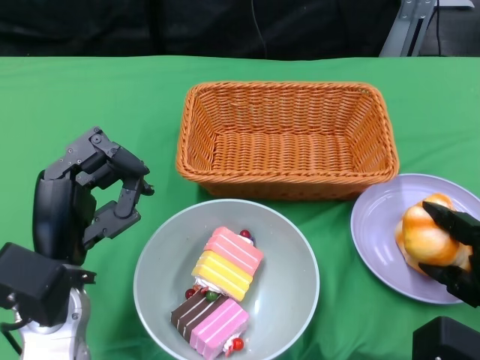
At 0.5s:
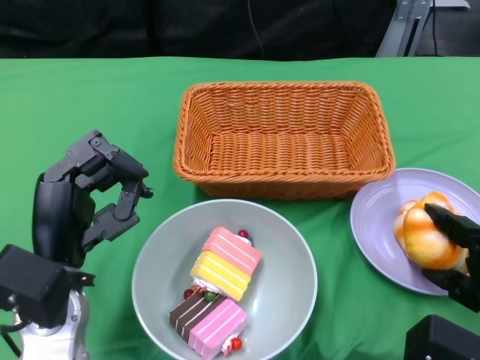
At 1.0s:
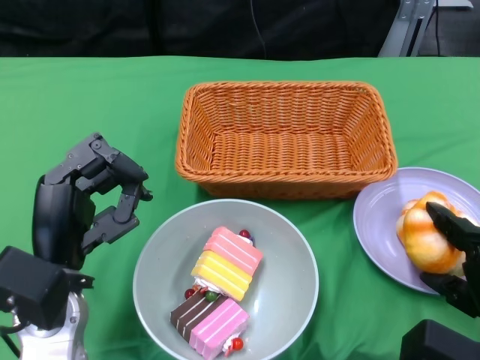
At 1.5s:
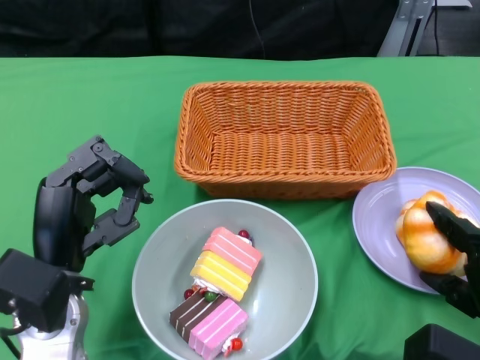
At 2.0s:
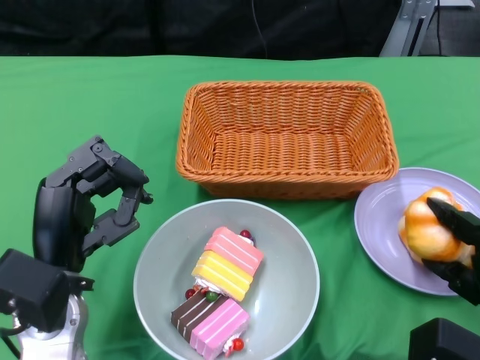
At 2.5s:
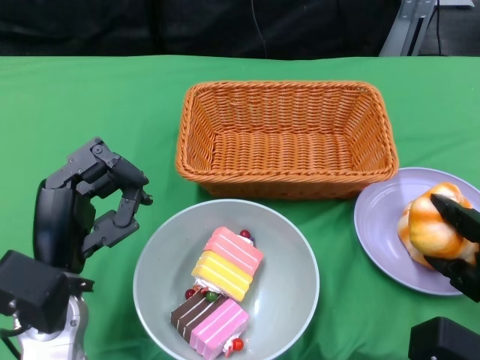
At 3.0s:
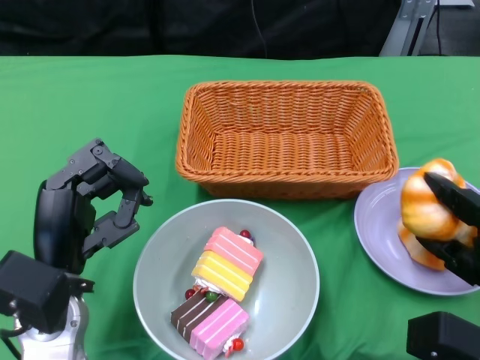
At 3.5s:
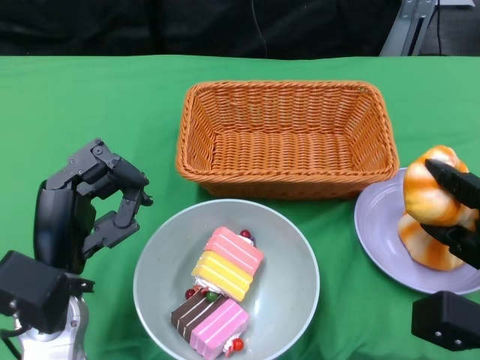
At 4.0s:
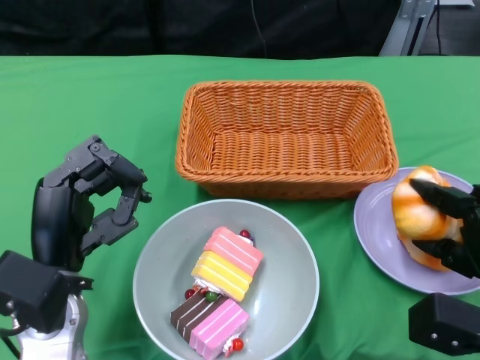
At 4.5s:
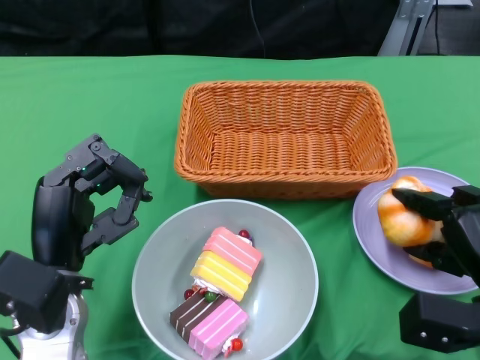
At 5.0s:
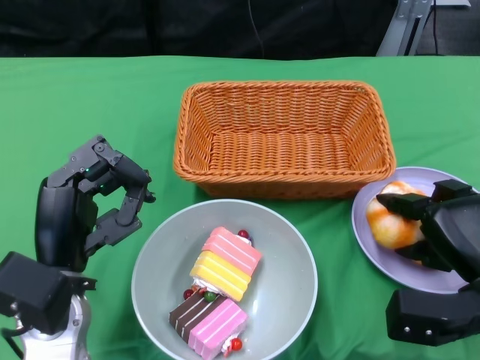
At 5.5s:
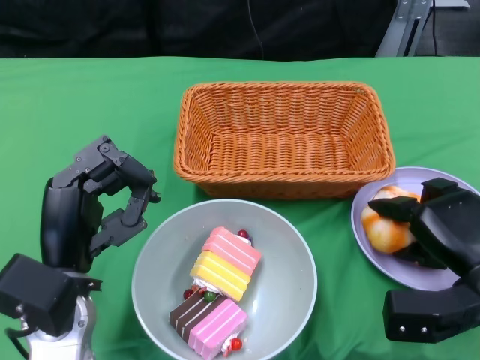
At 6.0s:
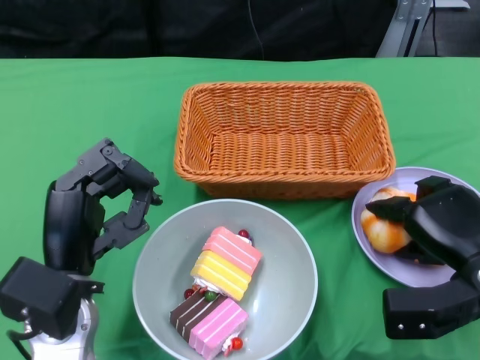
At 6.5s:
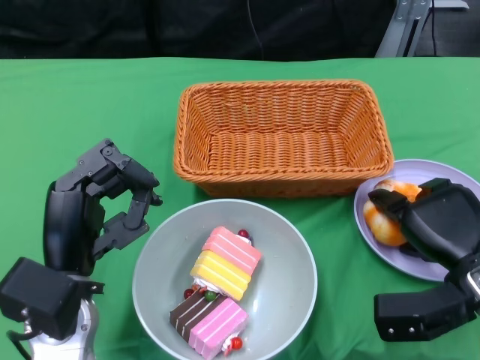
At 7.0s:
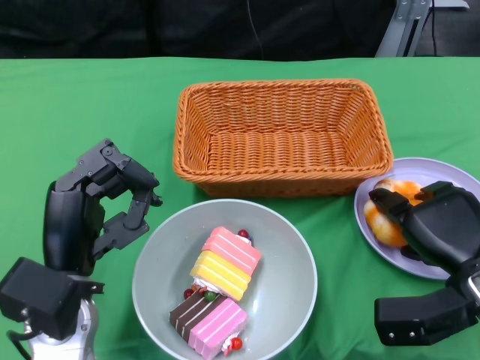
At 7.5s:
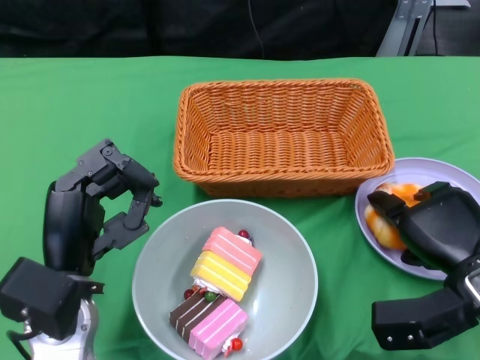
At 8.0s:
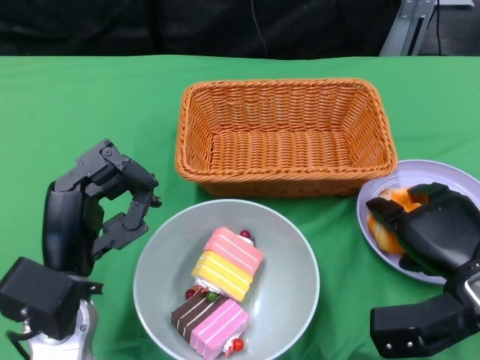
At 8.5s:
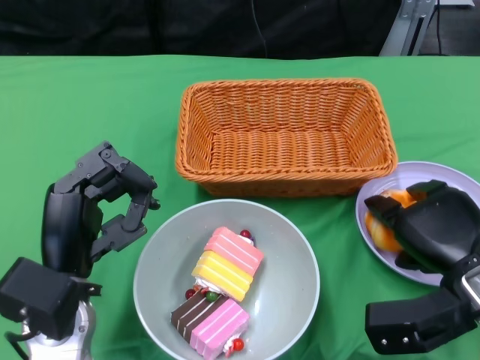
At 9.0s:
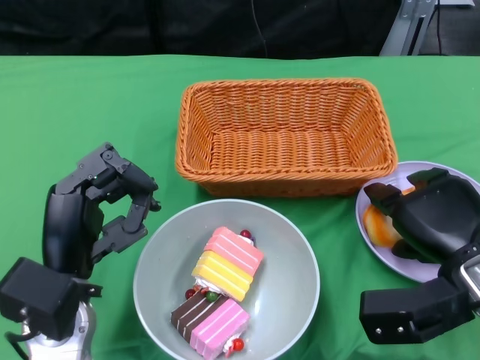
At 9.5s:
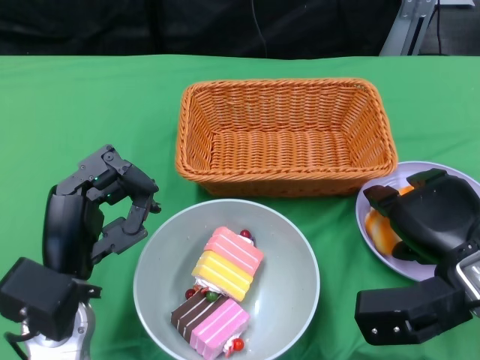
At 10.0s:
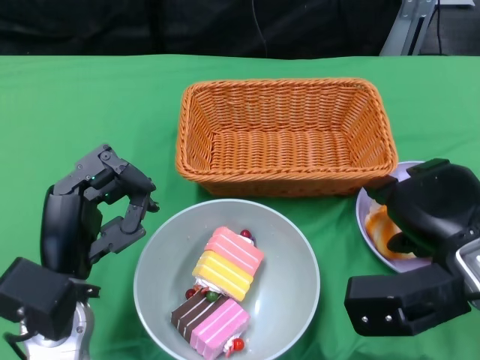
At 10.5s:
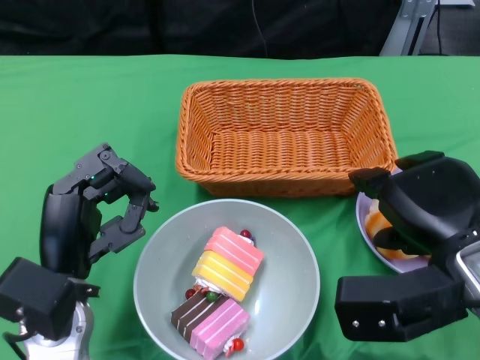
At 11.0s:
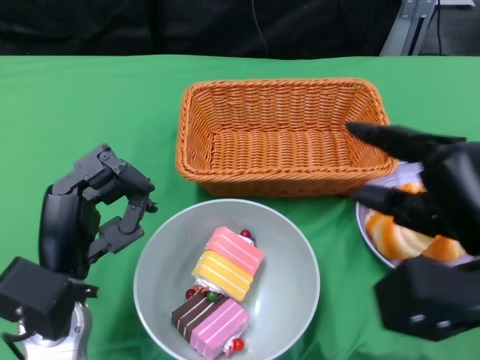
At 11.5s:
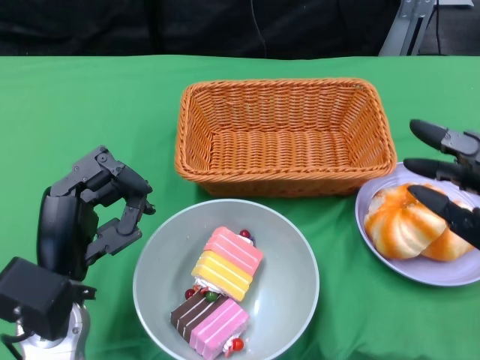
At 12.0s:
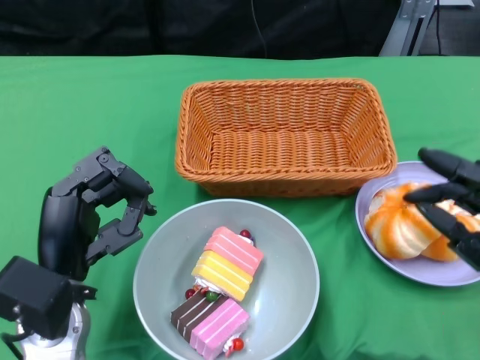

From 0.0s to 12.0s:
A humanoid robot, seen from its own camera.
From 0.0s to 4.0s: There are only small adjustments of the hands.
From 6.0s to 8.0s: The hands make only small movements.
From 8.0s to 10.0s: The right hand is displaced upward by approximately 5 cm.
From 10.0s to 12.0s: The right hand goes roughly 5 cm backward.

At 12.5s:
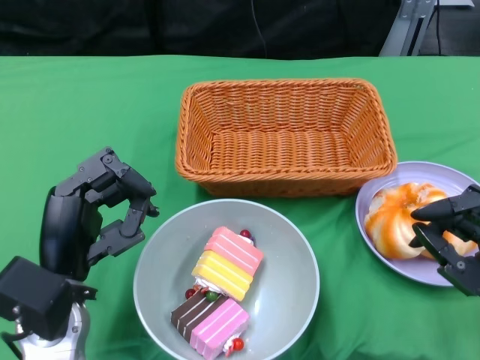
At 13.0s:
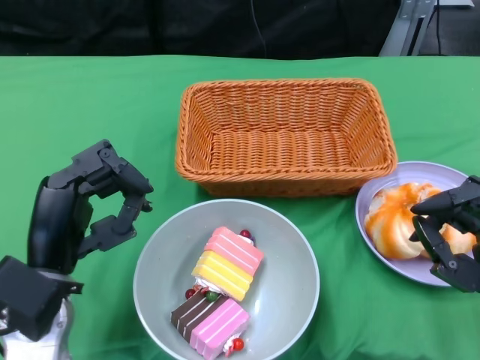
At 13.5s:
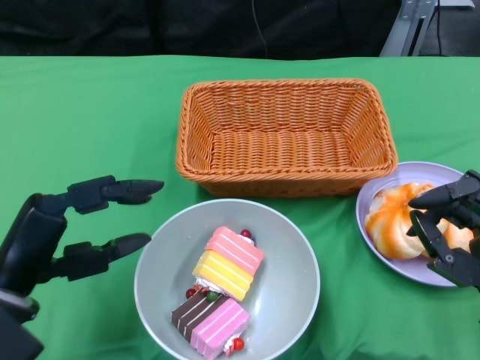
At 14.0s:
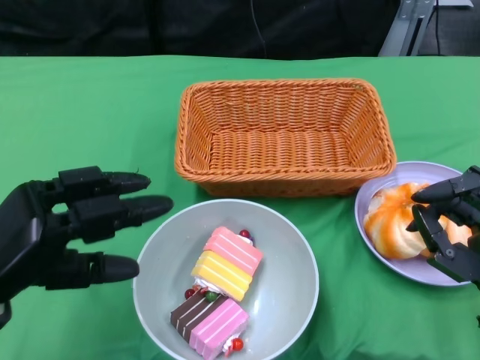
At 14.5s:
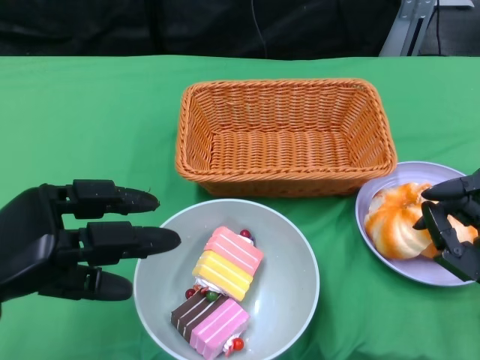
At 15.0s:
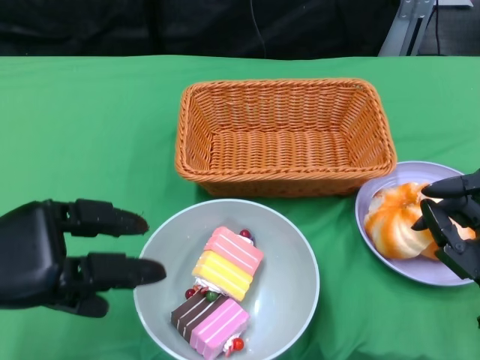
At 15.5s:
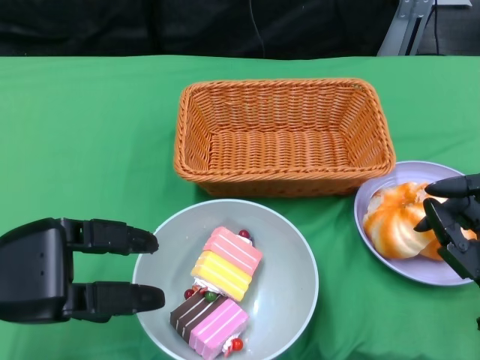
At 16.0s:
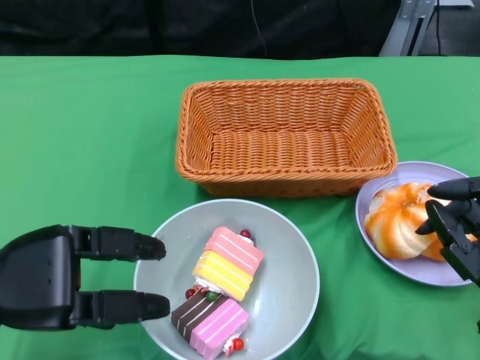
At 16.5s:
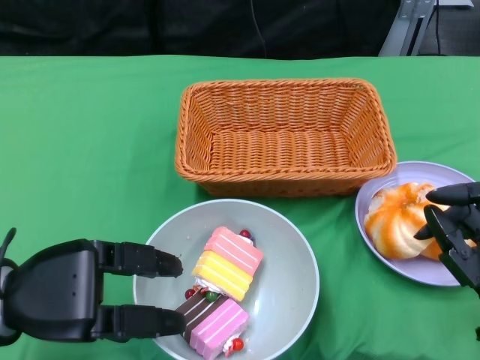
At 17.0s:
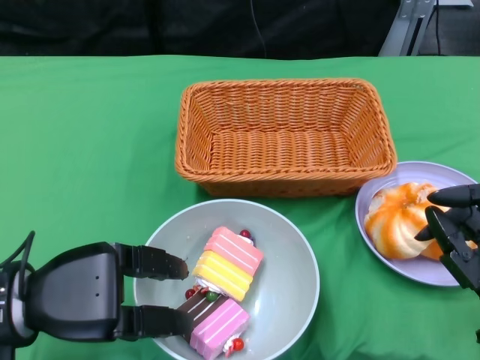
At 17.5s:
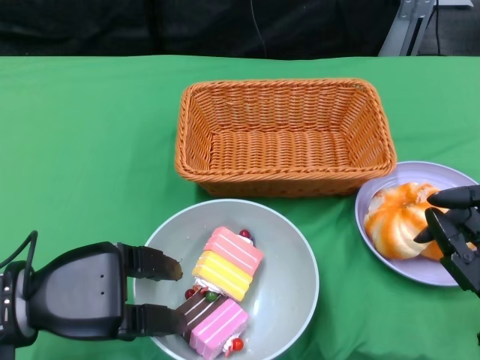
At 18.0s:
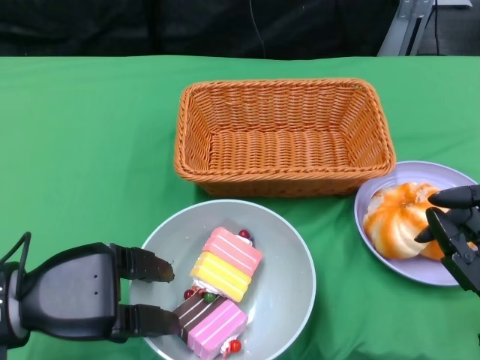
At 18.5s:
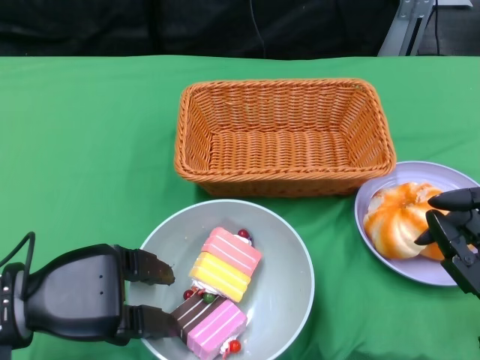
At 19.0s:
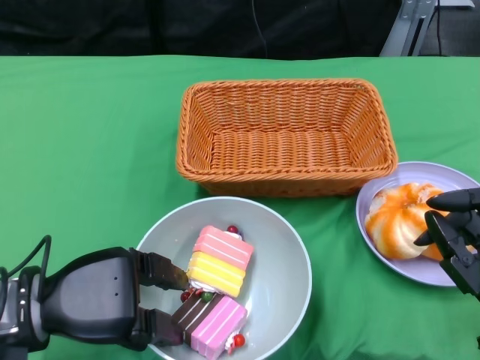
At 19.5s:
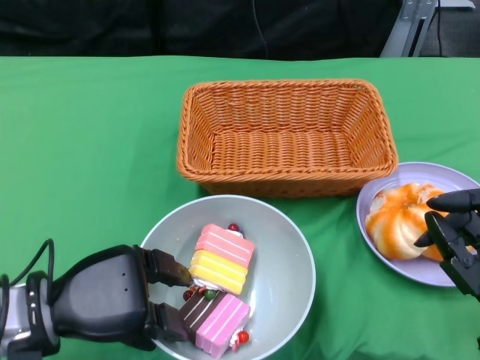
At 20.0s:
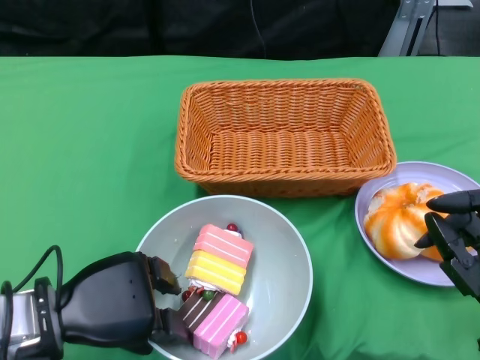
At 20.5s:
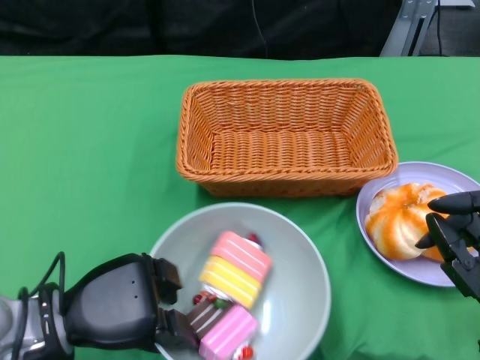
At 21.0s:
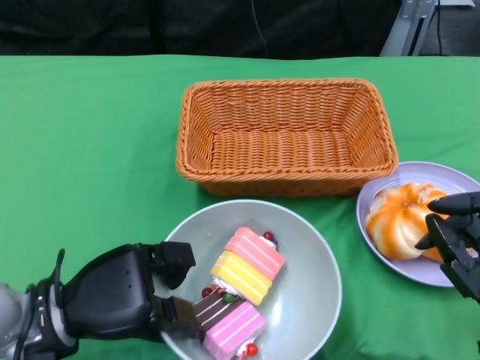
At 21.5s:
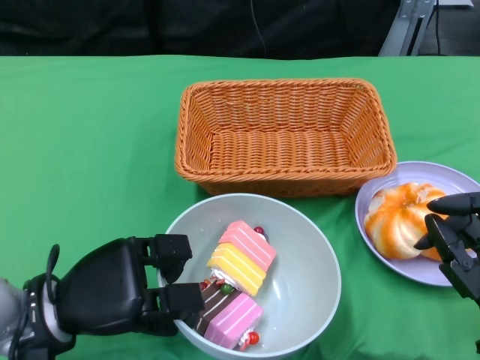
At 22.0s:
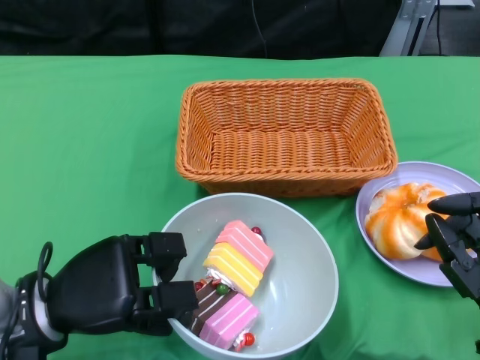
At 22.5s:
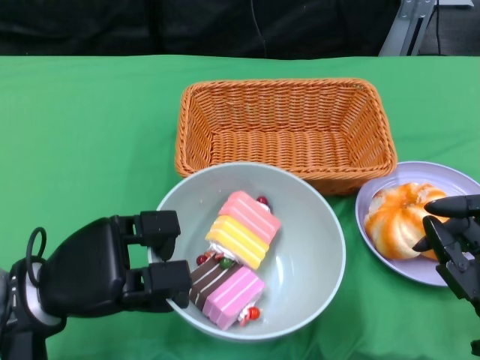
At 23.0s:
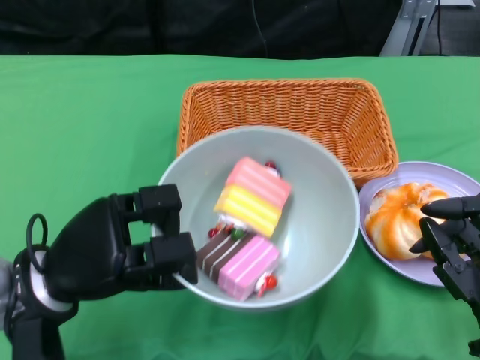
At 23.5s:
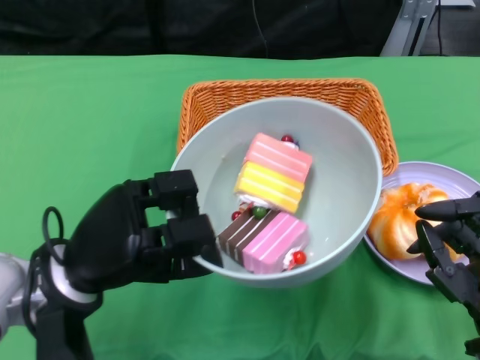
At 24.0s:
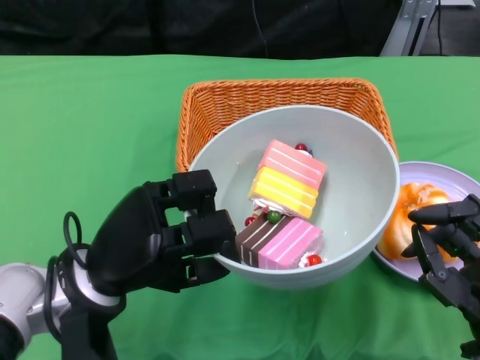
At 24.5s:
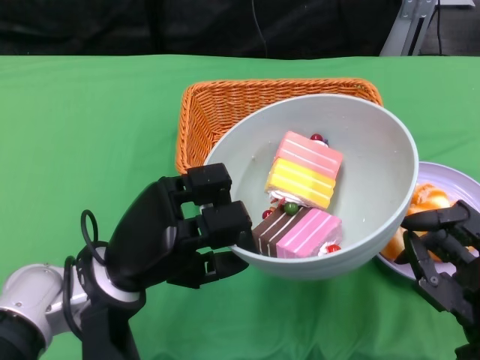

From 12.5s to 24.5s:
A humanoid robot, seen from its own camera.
Step, from 12.5s to 19.5s: Grasp the bowl with the left gripper.
From 12.5s to 14.5s: The left hand shifts some 10 cm to the left.
From 16.5s to 18.5s: There are only small adjustments of the hands.
From 18.5s to 20.5s: The hands stay close to where they were, moving slightly.
From 22.5s to 24.5s: The left hand moves to the right, some 5 cm.

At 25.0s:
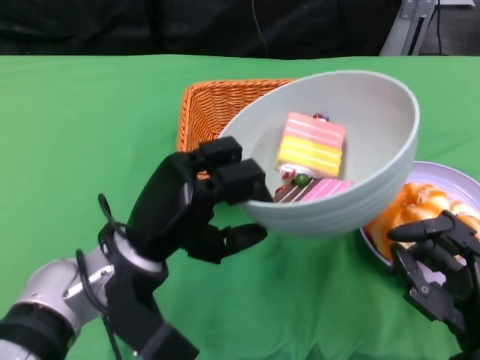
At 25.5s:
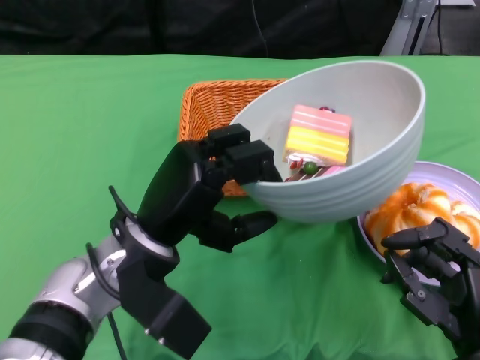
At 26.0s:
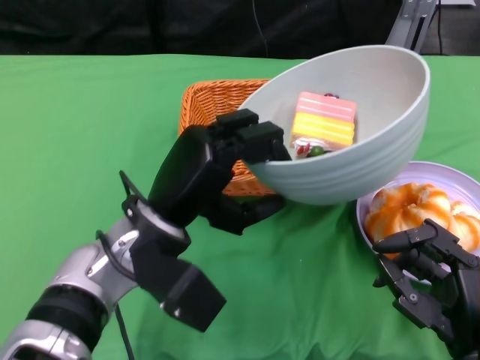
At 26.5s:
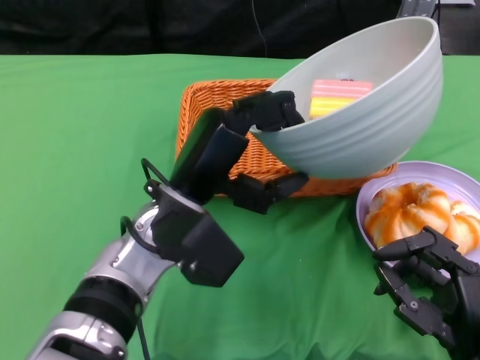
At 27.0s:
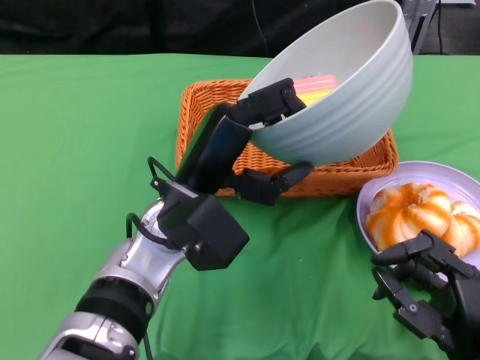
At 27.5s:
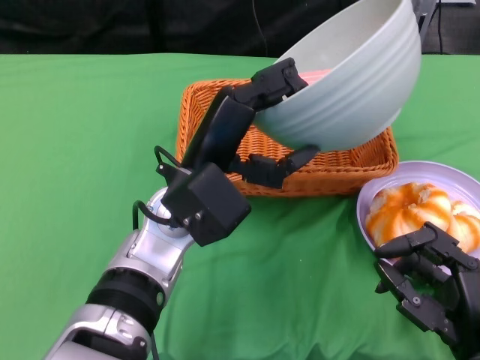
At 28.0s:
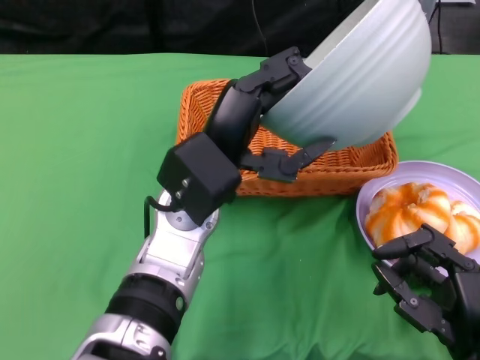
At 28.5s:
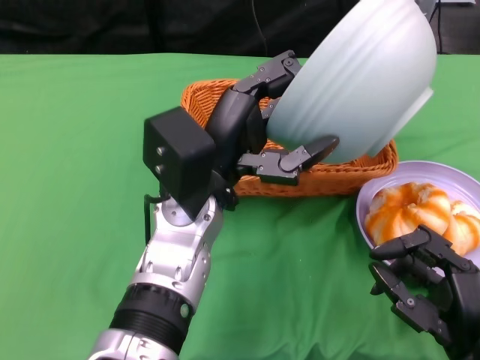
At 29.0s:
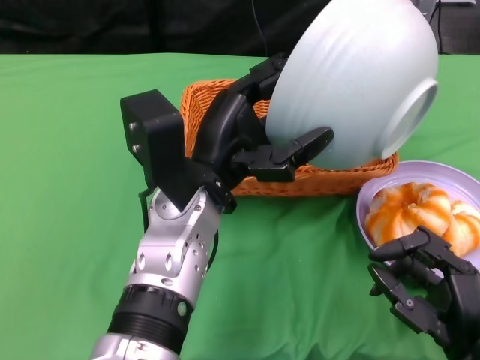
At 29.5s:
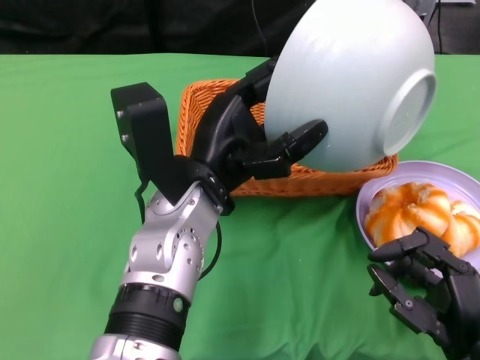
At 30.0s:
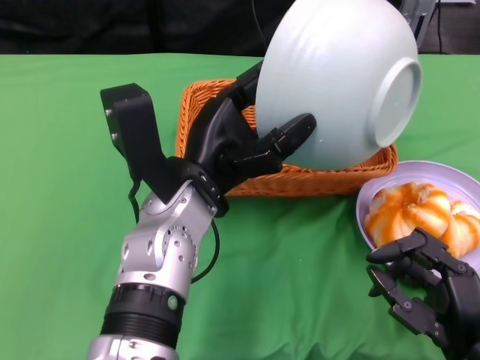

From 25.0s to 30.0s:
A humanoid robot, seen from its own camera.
From 25.0s to 27.5s: The left hand goes approximately 5 cm to the right.
